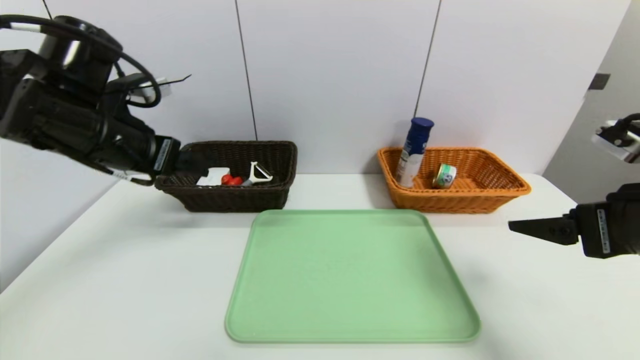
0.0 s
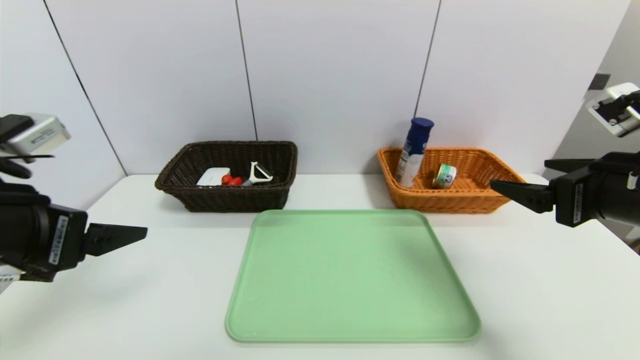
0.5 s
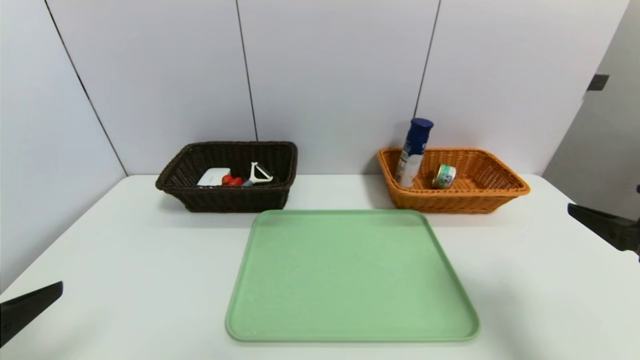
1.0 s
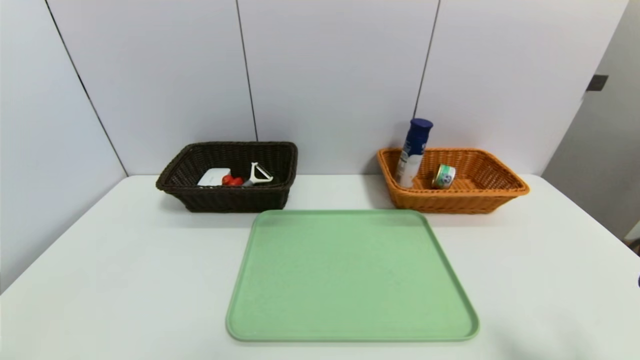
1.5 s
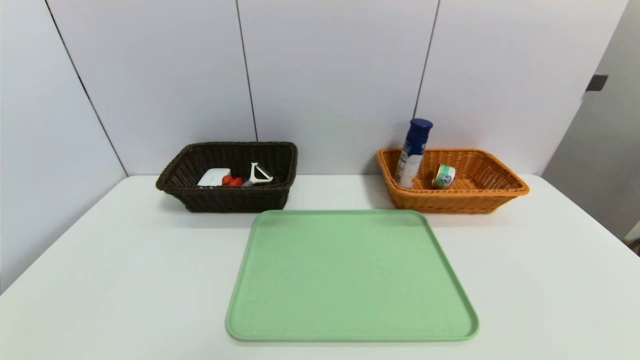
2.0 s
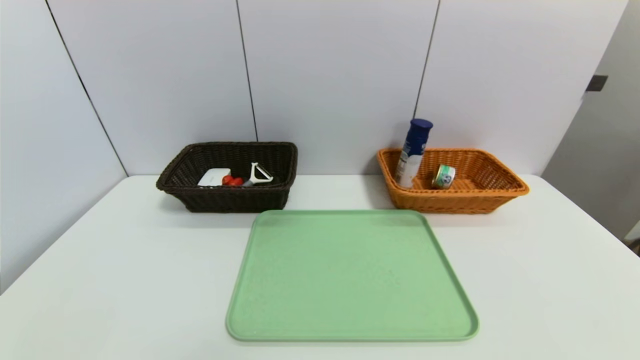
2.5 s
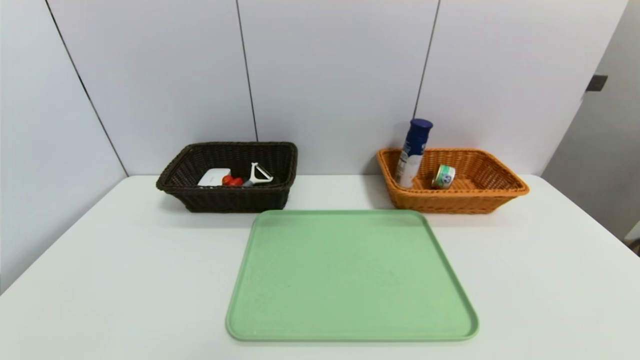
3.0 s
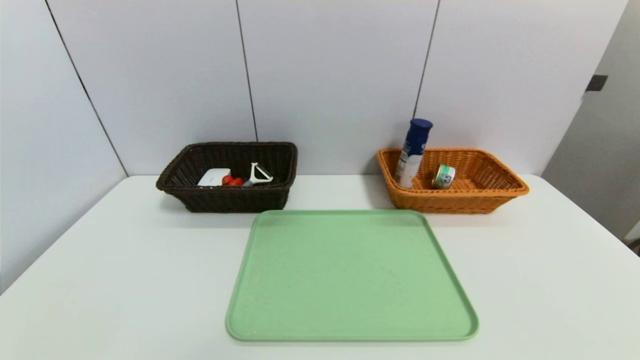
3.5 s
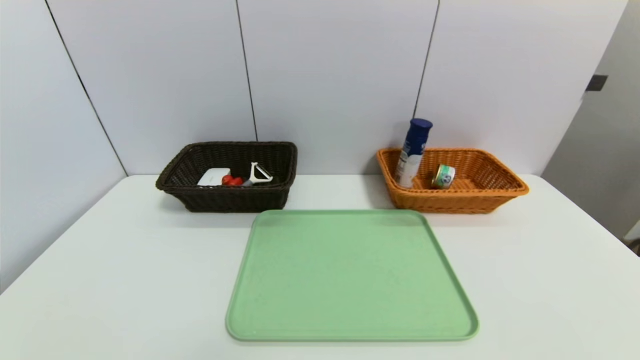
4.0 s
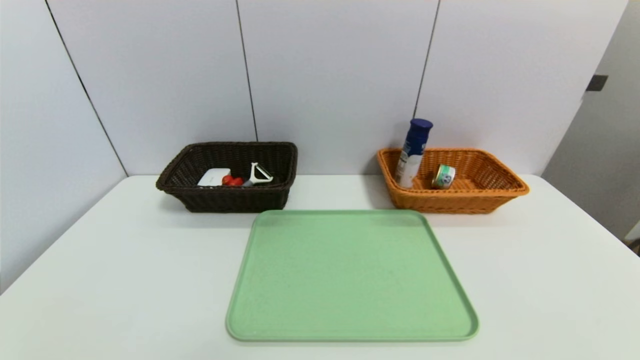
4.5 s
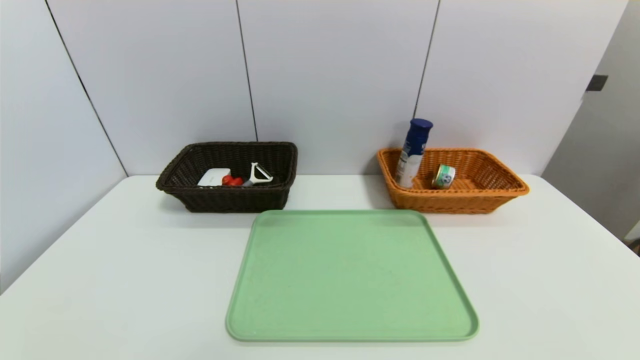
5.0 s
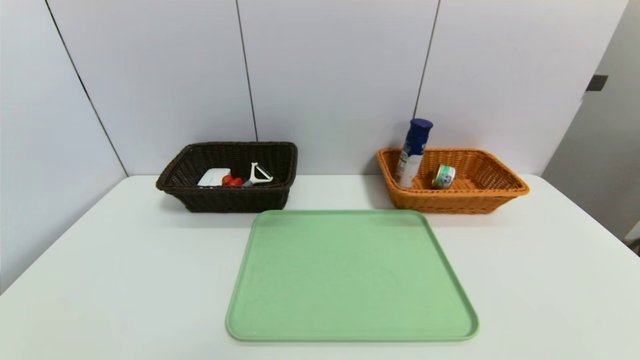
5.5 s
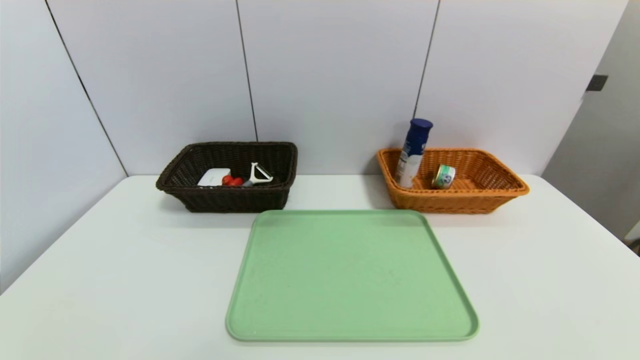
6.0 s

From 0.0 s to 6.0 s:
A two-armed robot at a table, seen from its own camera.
Task of the whole recording: place the food in the right basket with the right gripper, and place the non food items in the left basket with the left gripper.
From 0.0 s to 2.0 s: The right gripper heads backward and downward, covering approximately 20 cm, while the left gripper goes some 35 cm backward and downward.

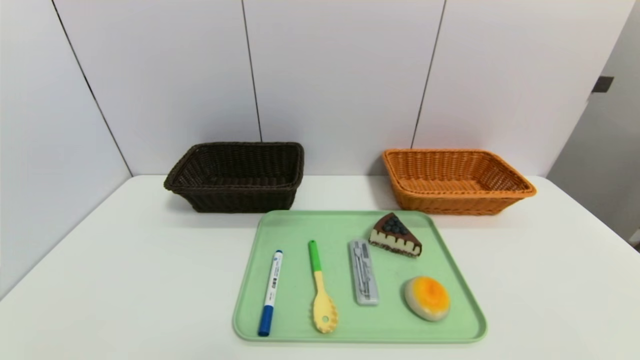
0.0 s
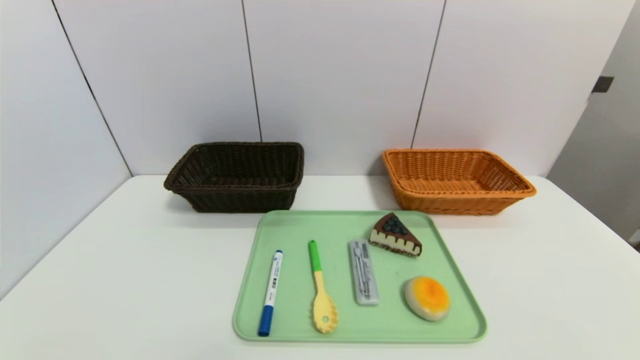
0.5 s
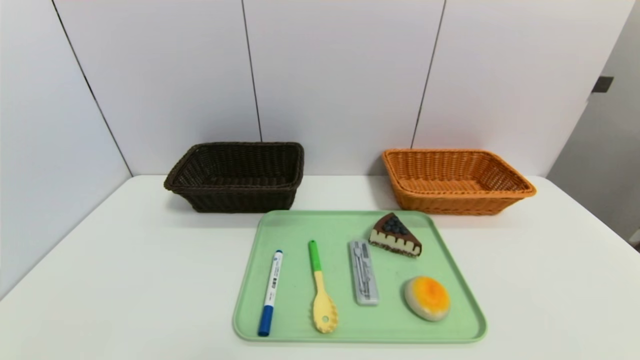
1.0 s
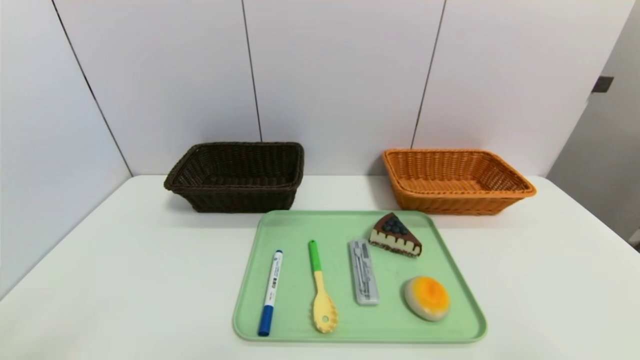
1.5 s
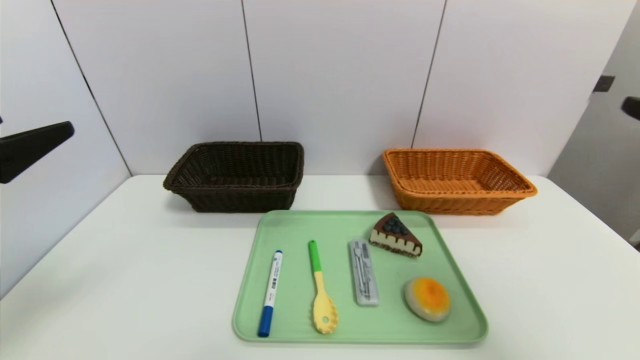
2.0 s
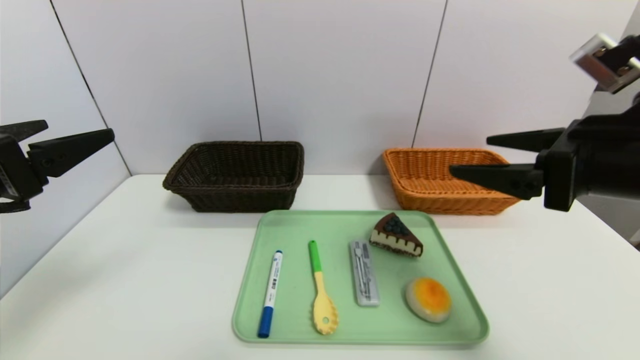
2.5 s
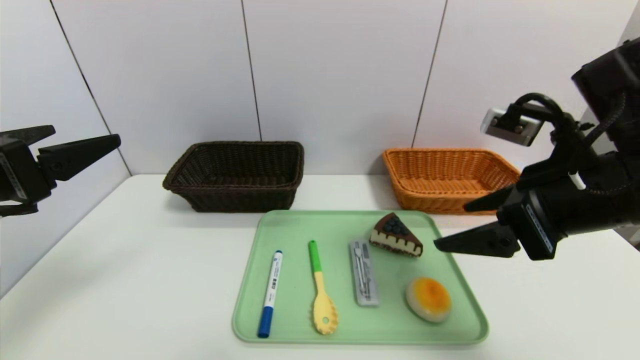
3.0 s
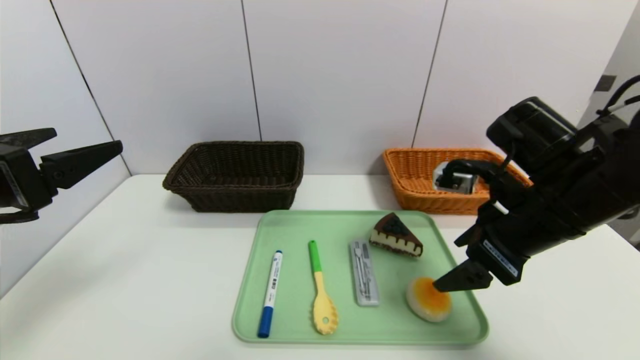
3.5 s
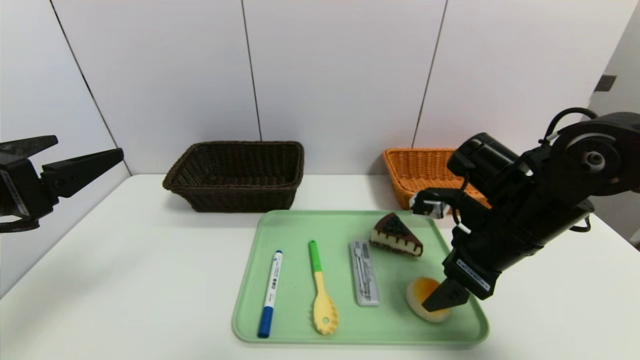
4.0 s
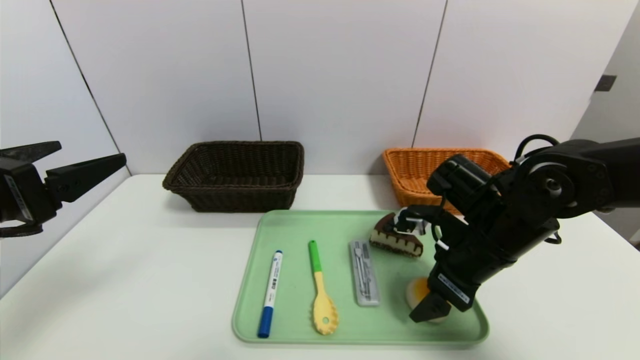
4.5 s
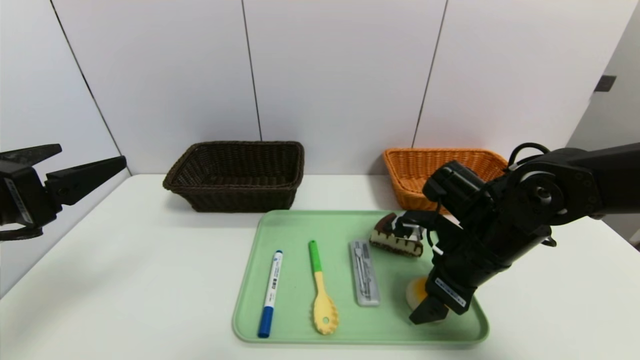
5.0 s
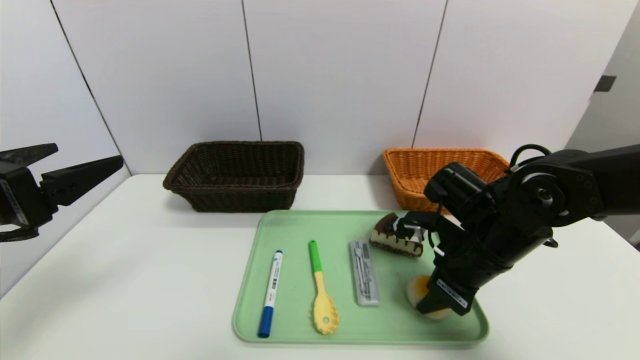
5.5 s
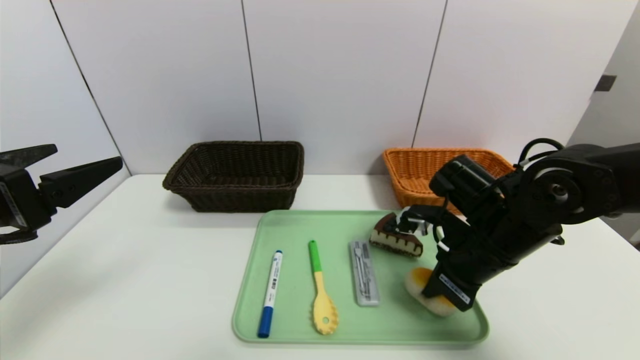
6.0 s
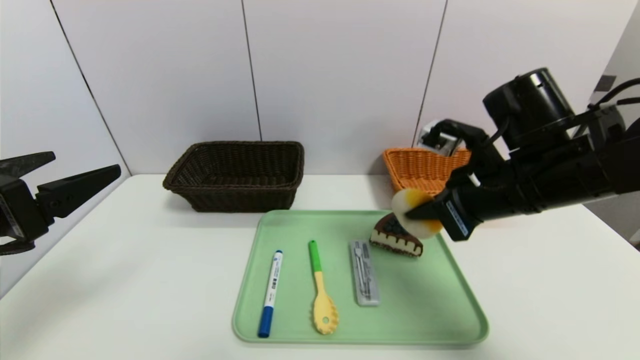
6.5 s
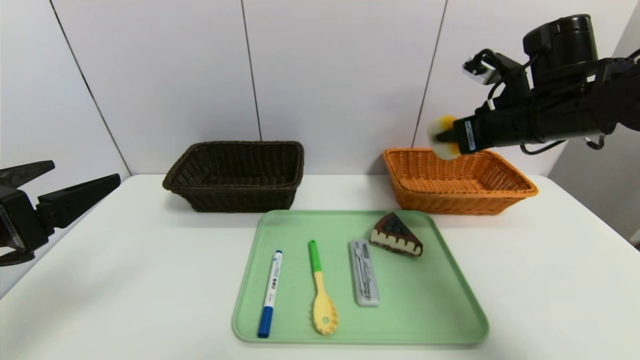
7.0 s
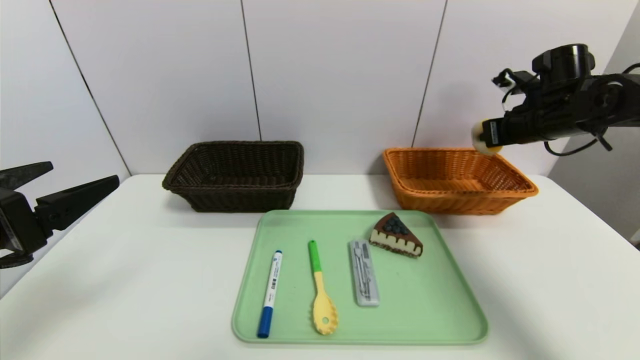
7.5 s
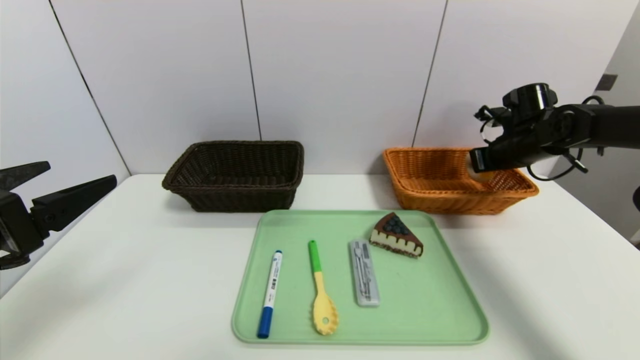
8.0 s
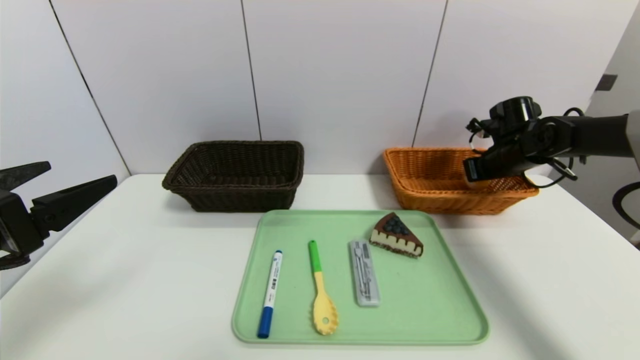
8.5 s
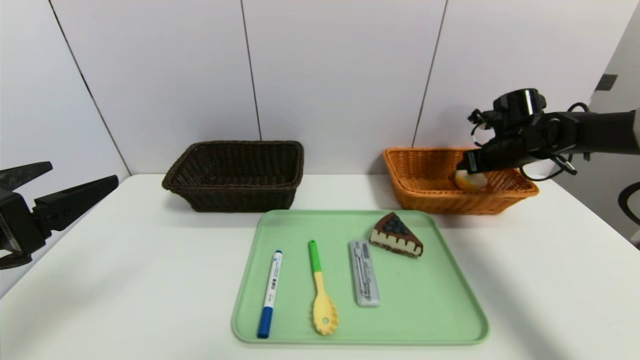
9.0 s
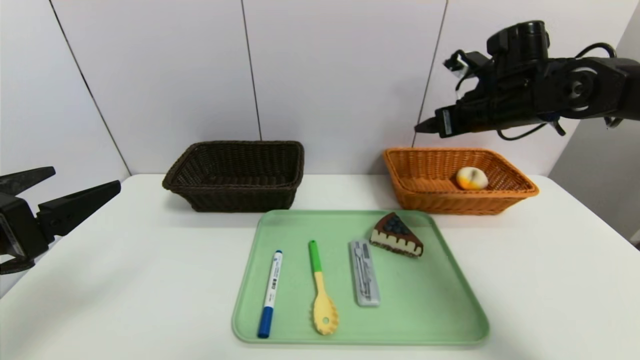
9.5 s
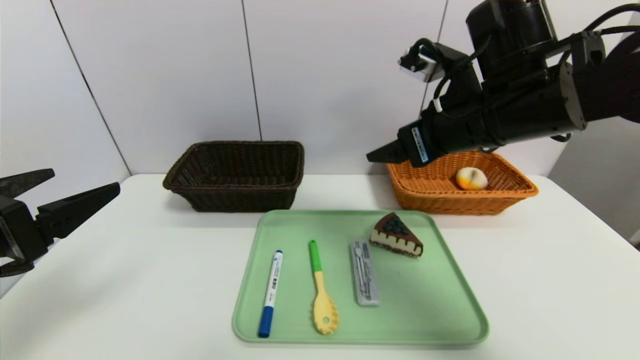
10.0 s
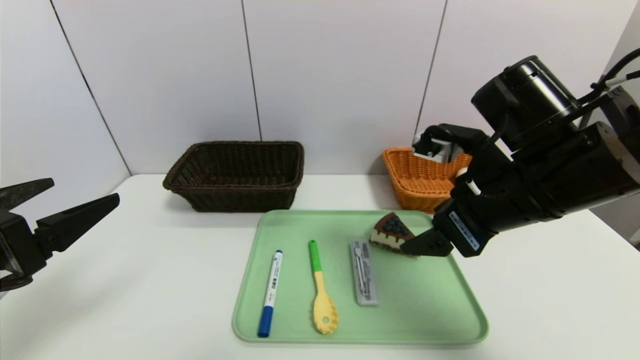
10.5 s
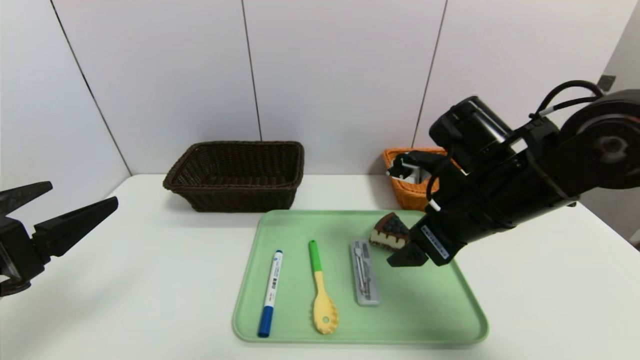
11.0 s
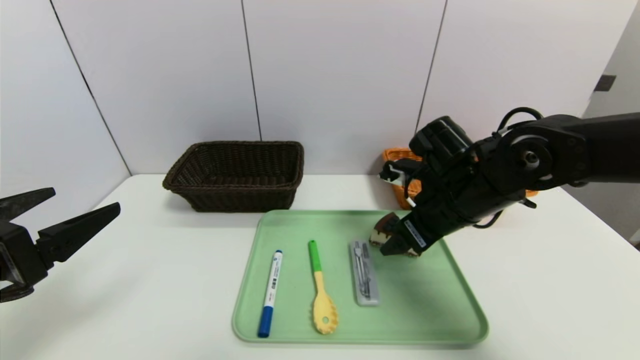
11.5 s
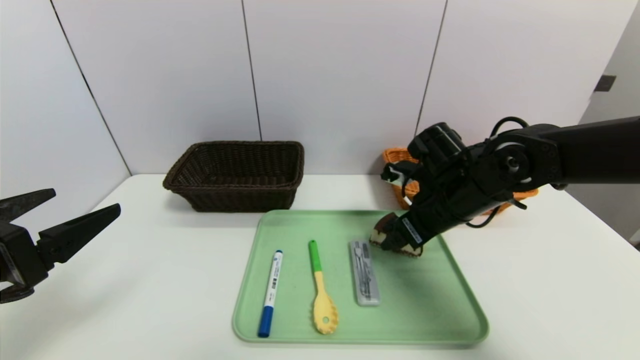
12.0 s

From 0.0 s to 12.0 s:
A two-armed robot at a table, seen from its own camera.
Task of the whole recording: place the food in the right basket with the right gripper, and place the non food items in the left basket with the left gripper.
Step, from 0.0 s to 9.0 s: Grasp the egg yolk pastry and put it in the right basket.
From 0.0 s to 2.0 s: The two grippers go some 25 cm upward and forward.
From 2.0 s to 4.0 s: The right gripper heads forward, downward and to the left, covering some 20 cm.
From 4.0 s to 6.0 s: The right gripper closes its fingers.
From 6.0 s to 8.0 s: The right gripper travels forward and to the right by roughly 25 cm.
From 8.0 s to 10.0 s: The right gripper moves to the left, backward and upward, about 25 cm, and opens up.
From 10.0 s to 12.0 s: The right gripper travels downward by some 15 cm.

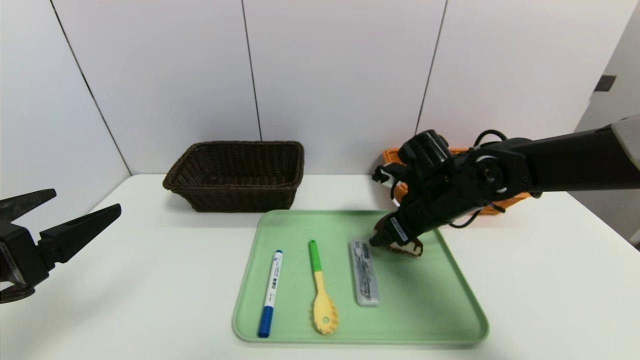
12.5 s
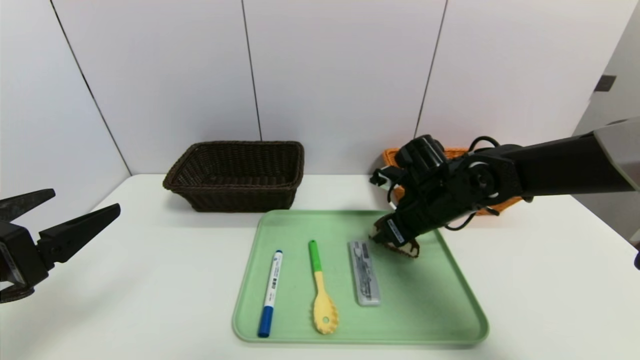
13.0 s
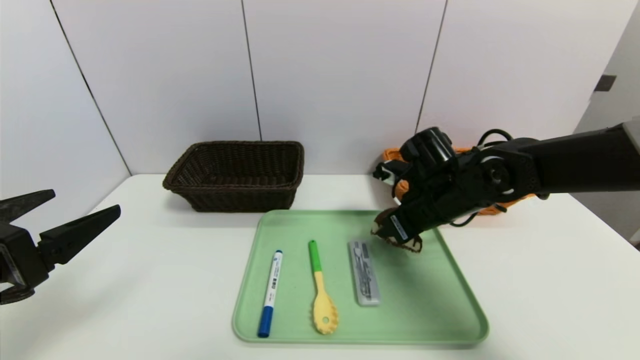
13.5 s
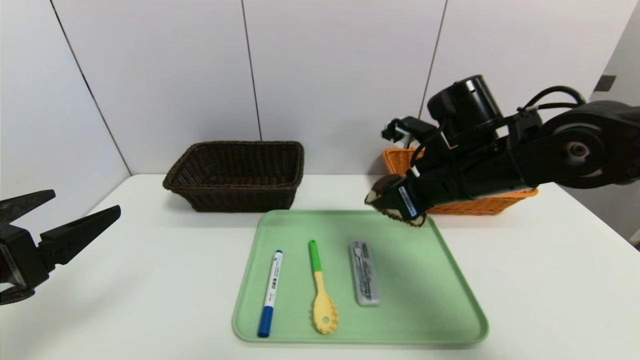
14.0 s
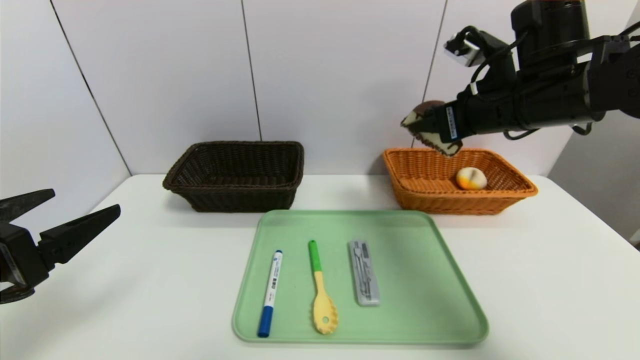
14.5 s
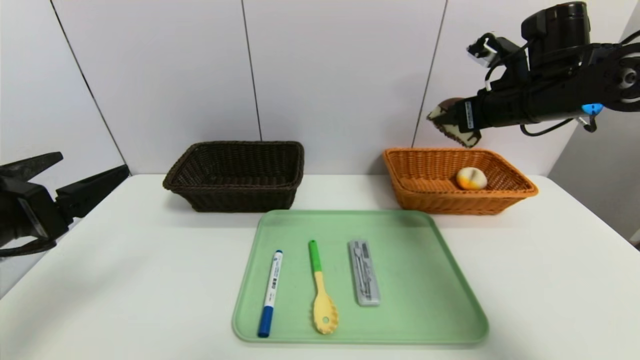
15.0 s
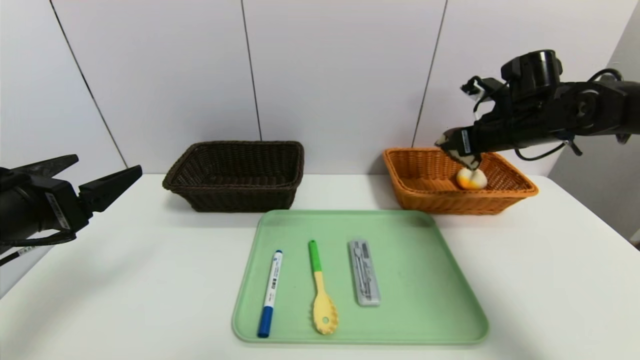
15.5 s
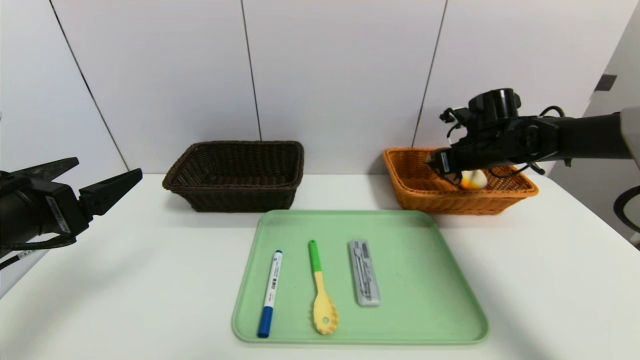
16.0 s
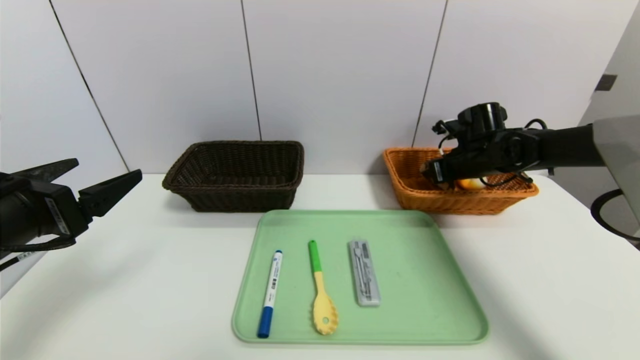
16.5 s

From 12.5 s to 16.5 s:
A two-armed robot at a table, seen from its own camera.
Task of the whole recording: place the food in the right basket with the right gripper, and place the non food items in the left basket with the left gripper.
From 12.5 s to 14.5 s: The right gripper moves upward, about 15 cm, and closes.
From 14.5 s to 16.5 s: The right gripper is displaced downward, forward and to the right by about 20 cm.
